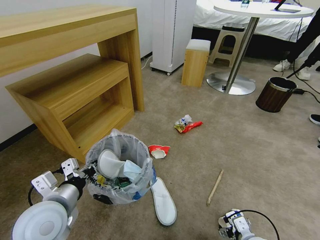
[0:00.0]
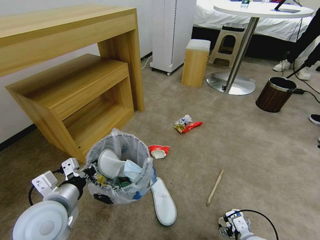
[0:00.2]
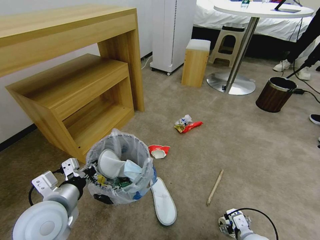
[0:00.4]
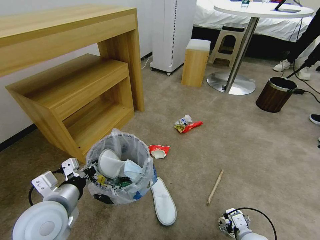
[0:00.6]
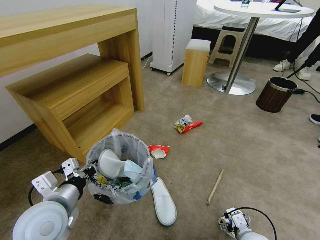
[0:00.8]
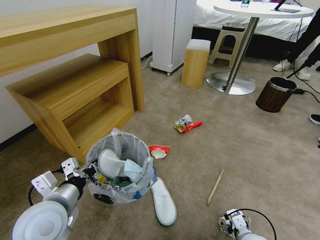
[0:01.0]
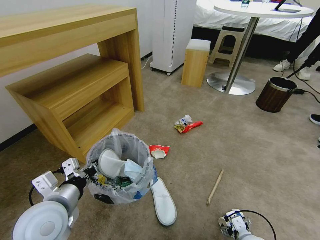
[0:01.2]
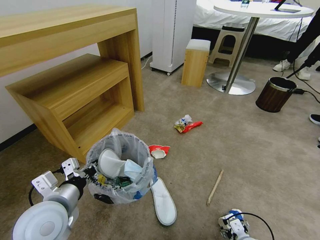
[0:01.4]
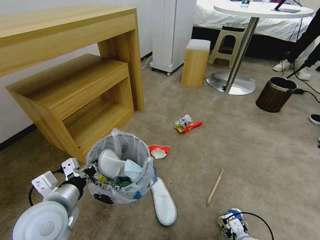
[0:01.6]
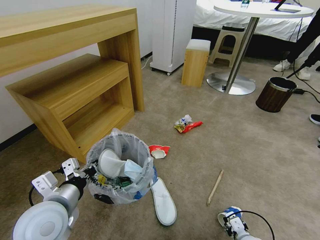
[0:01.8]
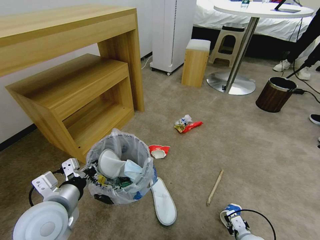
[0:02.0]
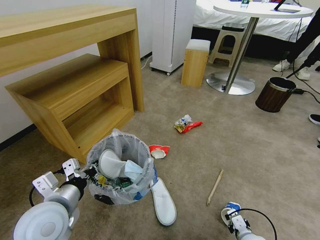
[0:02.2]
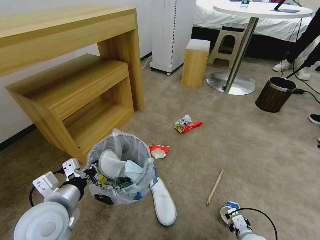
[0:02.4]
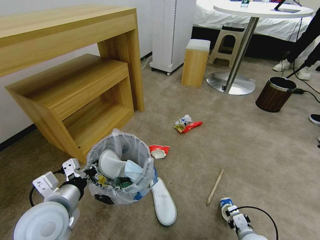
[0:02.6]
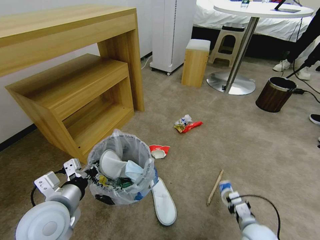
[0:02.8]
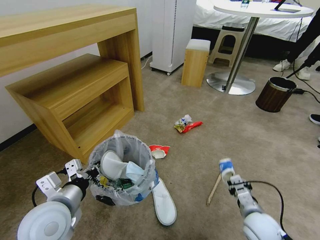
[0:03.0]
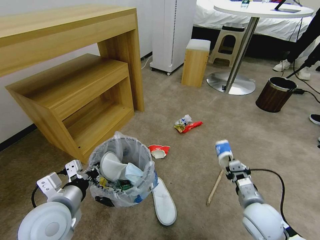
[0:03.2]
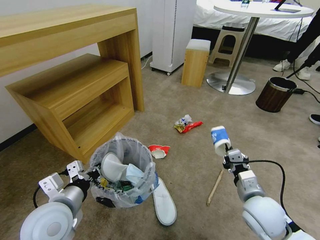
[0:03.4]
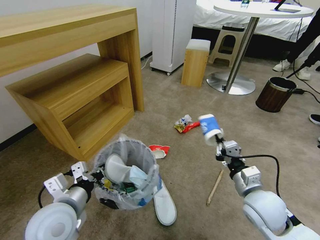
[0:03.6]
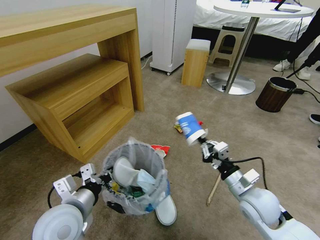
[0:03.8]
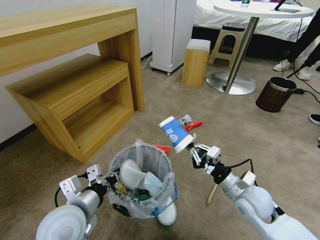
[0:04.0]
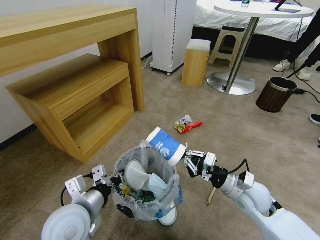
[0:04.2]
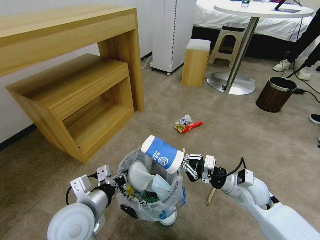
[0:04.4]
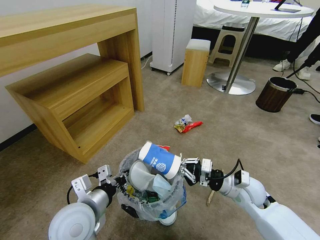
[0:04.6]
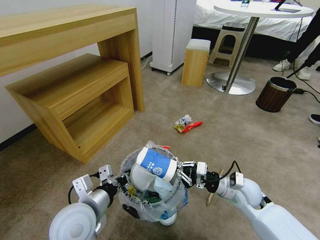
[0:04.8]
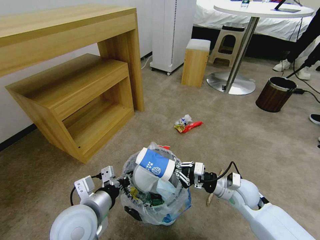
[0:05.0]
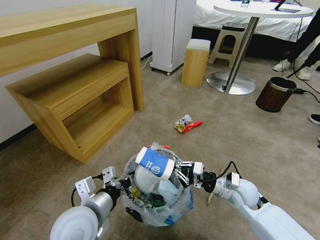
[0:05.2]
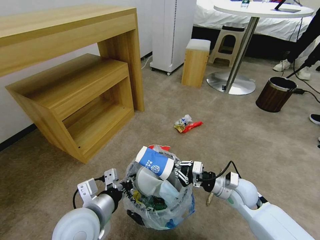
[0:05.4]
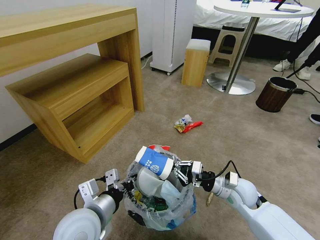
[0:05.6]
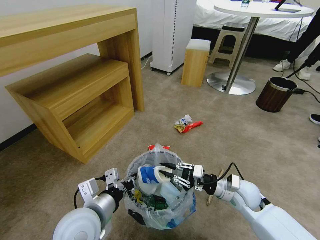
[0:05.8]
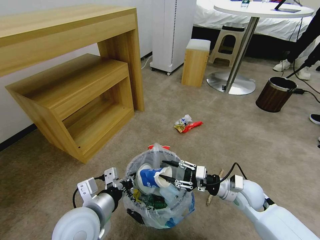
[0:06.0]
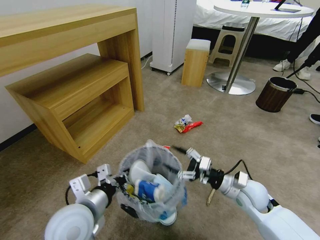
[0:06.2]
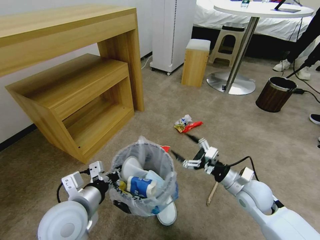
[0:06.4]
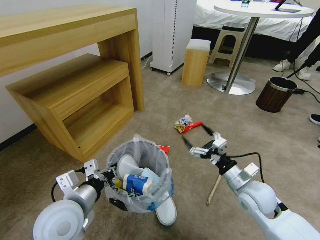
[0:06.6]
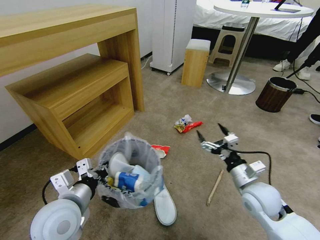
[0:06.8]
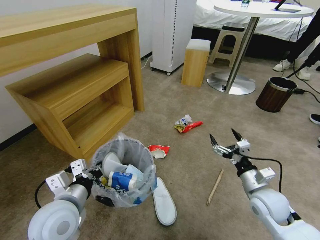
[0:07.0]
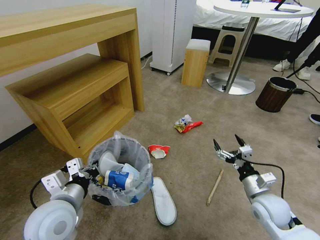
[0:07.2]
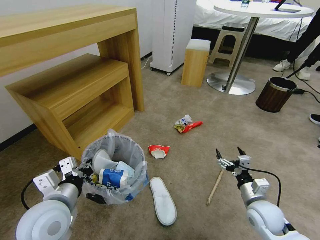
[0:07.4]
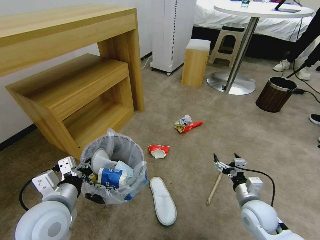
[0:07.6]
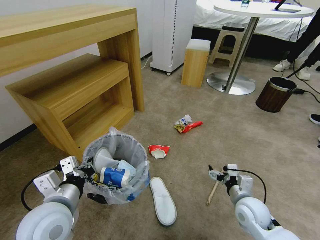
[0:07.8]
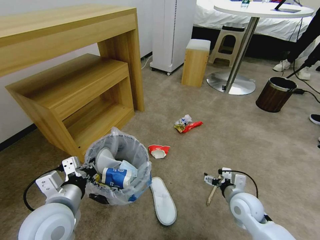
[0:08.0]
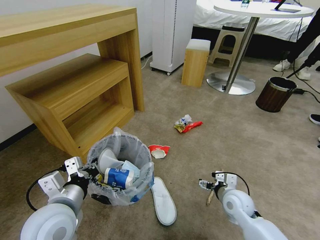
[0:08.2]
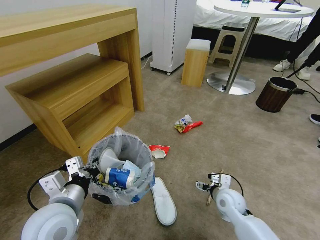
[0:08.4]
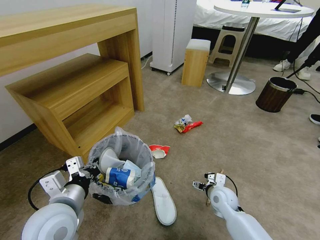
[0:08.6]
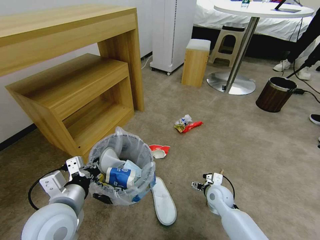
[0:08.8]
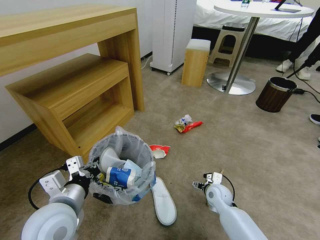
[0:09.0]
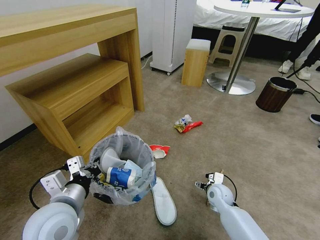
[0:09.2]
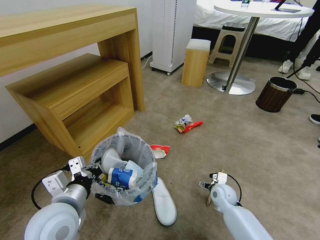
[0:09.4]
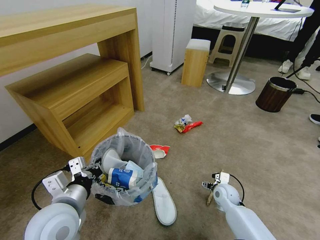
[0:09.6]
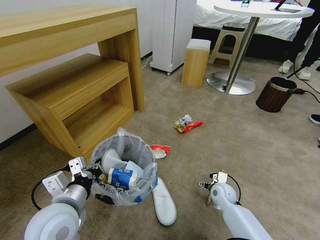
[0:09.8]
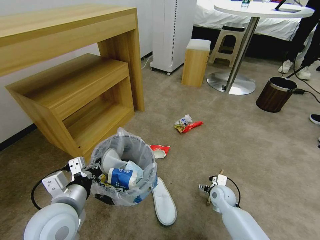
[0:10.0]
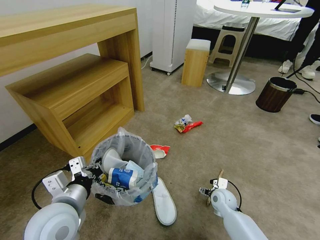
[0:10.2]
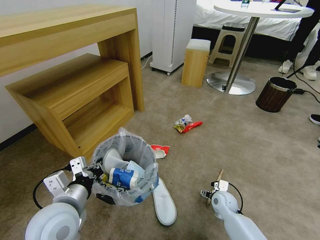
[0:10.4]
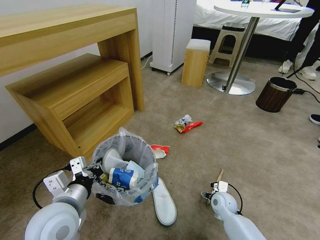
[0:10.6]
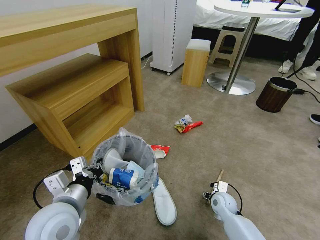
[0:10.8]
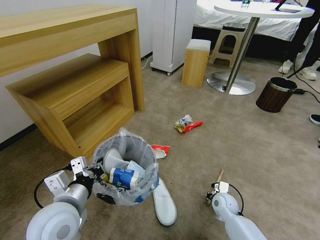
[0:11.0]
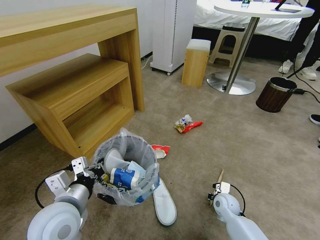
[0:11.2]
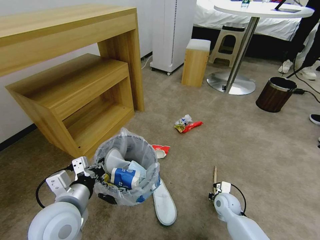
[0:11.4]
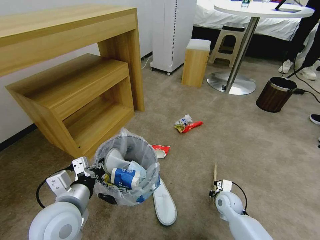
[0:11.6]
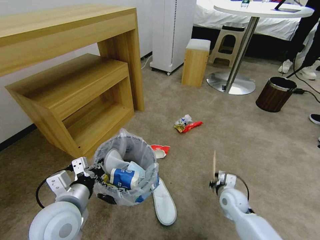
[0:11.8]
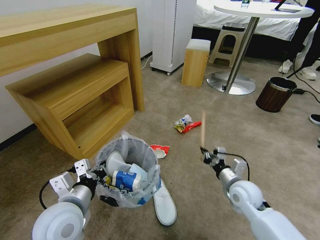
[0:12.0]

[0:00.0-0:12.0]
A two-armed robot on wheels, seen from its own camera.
Task of the whole recording: Pick up the trash bin and place the garbage on the floor into it.
0:00.0 to 0:01.6: The right gripper heads downward, covering some 5 cm.
0:01.6 to 0:03.0: The right gripper goes roughly 10 cm upward, and closes up.
0:03.0 to 0:04.4: The right gripper shifts approximately 10 cm forward and upward. The left gripper shifts by about 5 cm.
0:04.4 to 0:06.0: The right gripper opens its fingers.
0:06.0 to 0:07.6: The left gripper shifts some 5 cm to the left. Meanwhile the right gripper is displaced backward by some 5 cm, and opens up.
0:07.6 to 0:09.0: The right gripper travels forward, downward and to the left by some 15 cm.
0:09.0 to 0:10.4: There are only small adjustments of the grippers.
0:10.4 to 0:12.0: The right gripper shifts some 15 cm upward, and closes up.

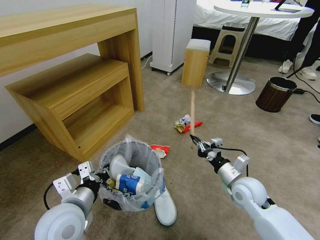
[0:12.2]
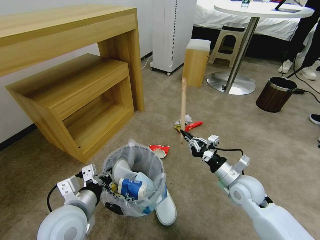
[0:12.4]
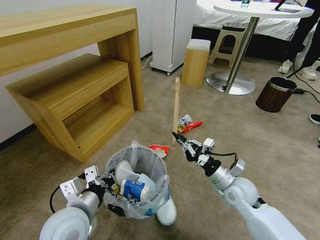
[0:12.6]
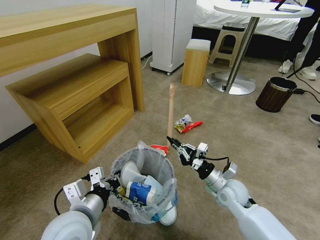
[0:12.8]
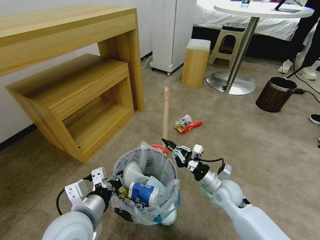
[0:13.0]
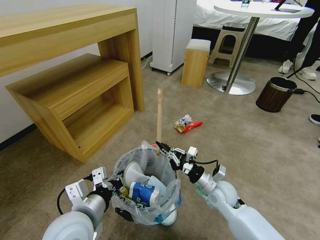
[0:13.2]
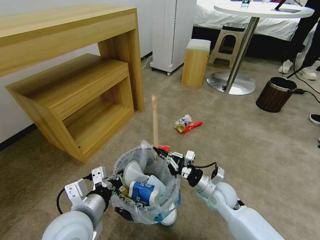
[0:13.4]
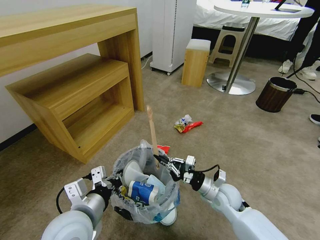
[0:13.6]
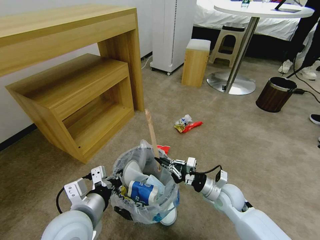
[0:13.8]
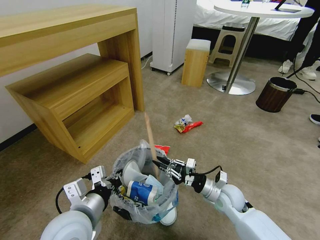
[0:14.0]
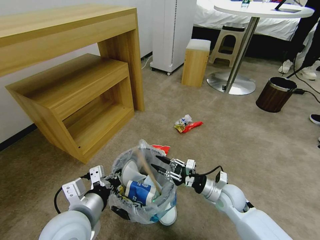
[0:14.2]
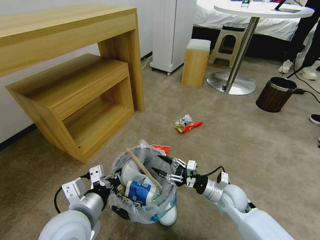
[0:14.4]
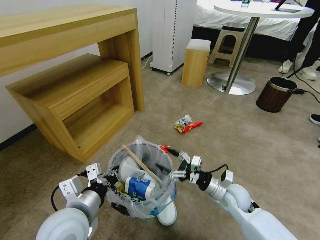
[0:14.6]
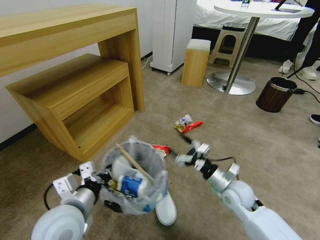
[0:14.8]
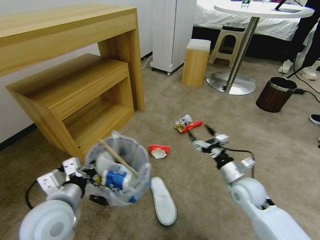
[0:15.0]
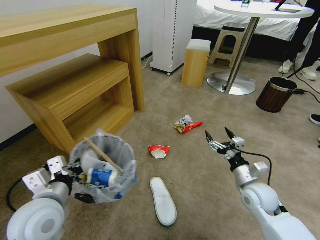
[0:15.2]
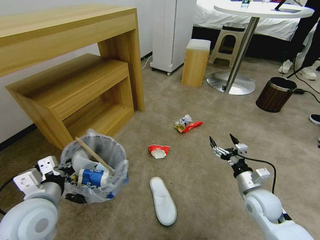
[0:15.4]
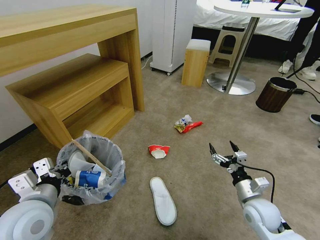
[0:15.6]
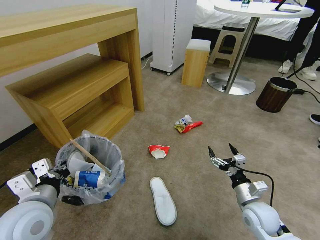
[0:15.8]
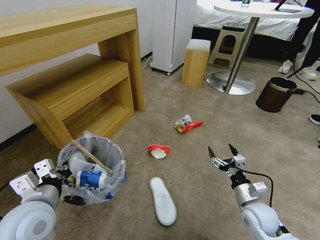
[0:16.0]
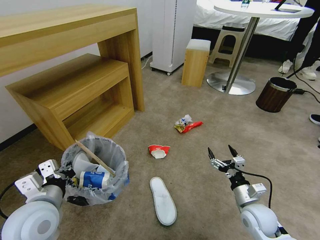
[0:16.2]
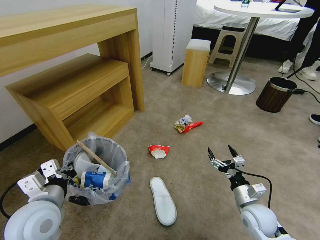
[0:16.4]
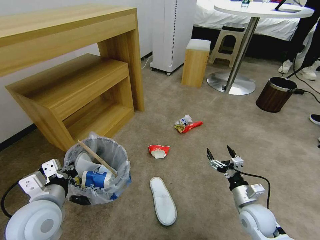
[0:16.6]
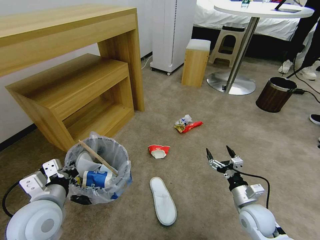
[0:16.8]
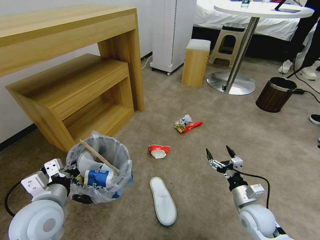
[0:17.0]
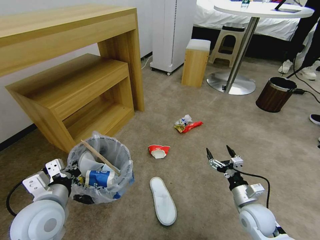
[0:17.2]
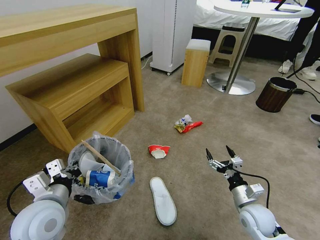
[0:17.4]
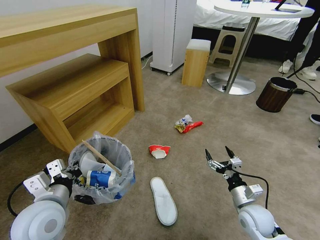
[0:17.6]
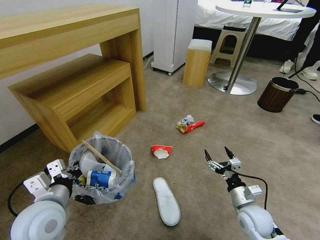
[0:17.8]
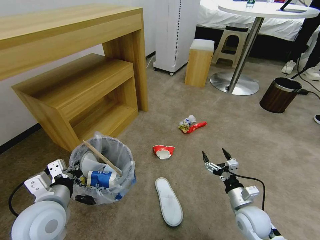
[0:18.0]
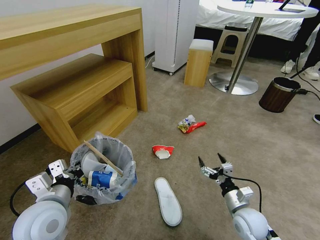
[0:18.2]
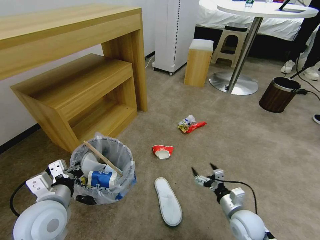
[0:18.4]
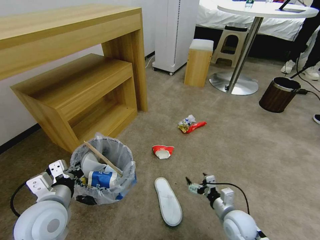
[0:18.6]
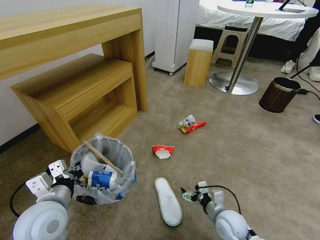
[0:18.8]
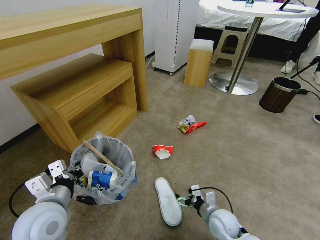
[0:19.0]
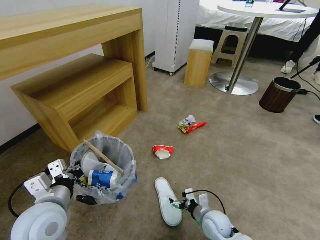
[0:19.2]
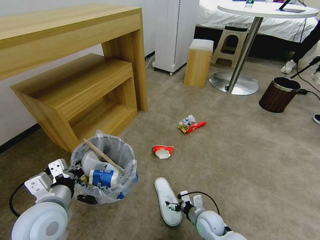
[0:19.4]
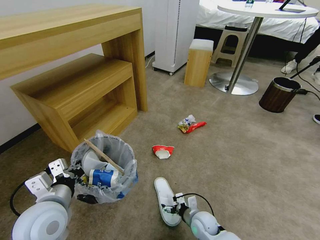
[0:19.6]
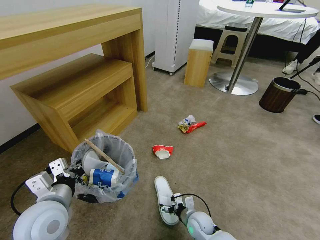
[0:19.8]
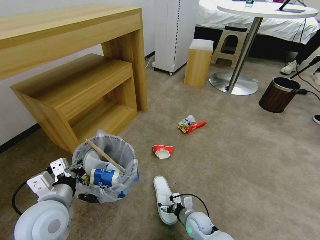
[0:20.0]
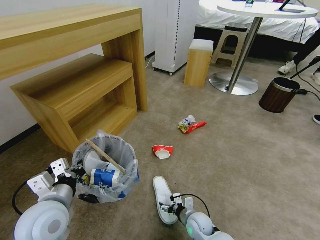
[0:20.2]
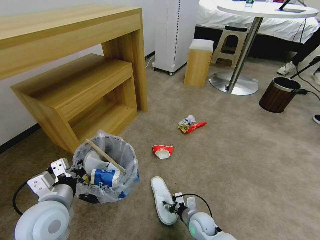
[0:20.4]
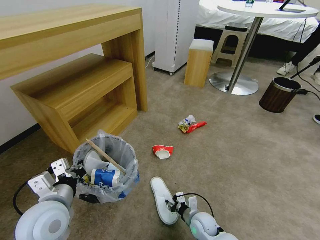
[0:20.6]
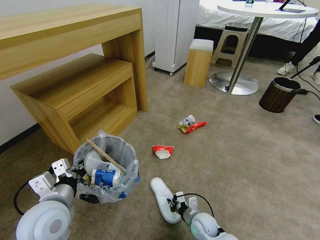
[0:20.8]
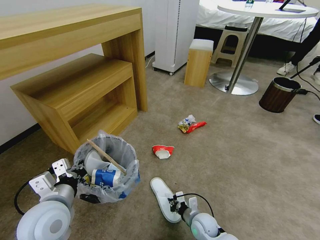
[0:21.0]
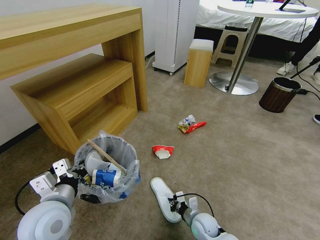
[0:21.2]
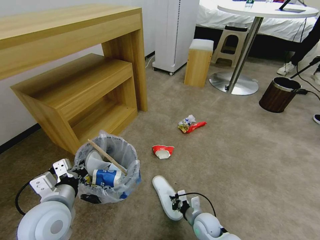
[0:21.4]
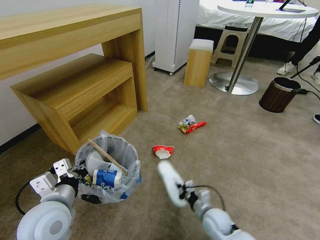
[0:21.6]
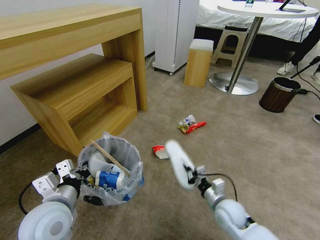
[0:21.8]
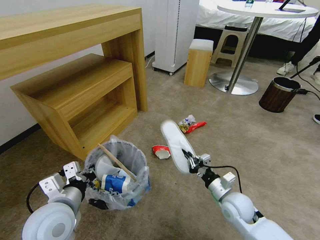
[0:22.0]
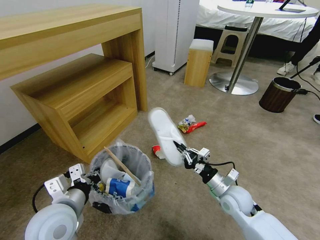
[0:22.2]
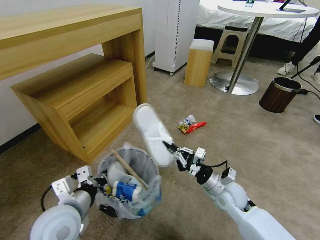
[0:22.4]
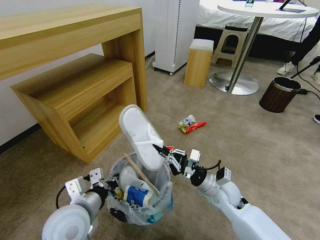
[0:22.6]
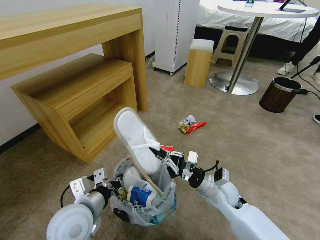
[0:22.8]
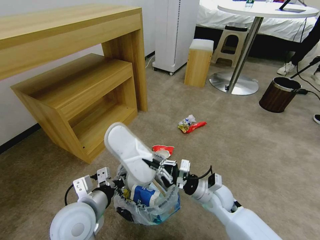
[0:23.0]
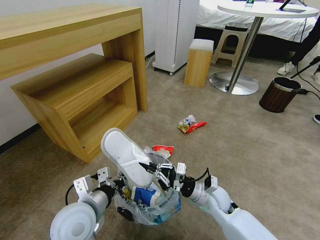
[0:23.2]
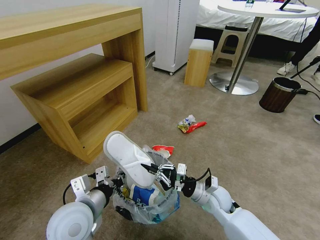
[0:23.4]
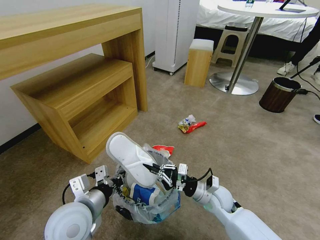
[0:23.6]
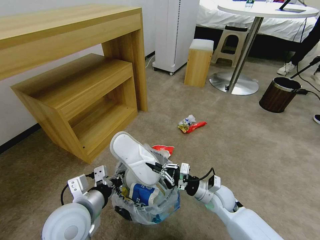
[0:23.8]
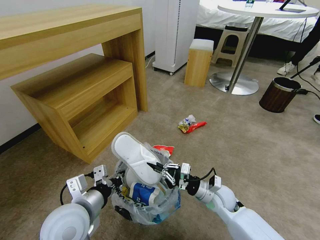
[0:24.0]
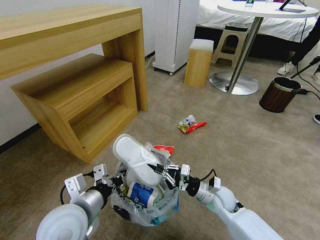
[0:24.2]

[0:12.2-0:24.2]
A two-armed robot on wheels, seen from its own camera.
Task of the whole recording: Pick up the trash bin and place the garbage on the floor into it.
0:12.2 to 0:13.8: The right gripper travels downward by roughly 5 cm.
0:13.8 to 0:15.2: The right gripper moves to the right, some 5 cm, and opens its fingers; the left gripper heads to the left, covering approximately 5 cm.
0:15.2 to 0:16.6: The right gripper goes roughly 10 cm downward and backward.
0:16.6 to 0:18.2: There are only small adjustments of the grippers.
0:18.2 to 0:19.8: The right gripper goes some 15 cm to the left and downward.
0:19.8 to 0:21.2: The right gripper closes.
0:21.2 to 0:22.6: The right gripper heads upward, covering about 15 cm.
0:22.6 to 0:24.2: The right gripper is displaced downward by roughly 5 cm.
